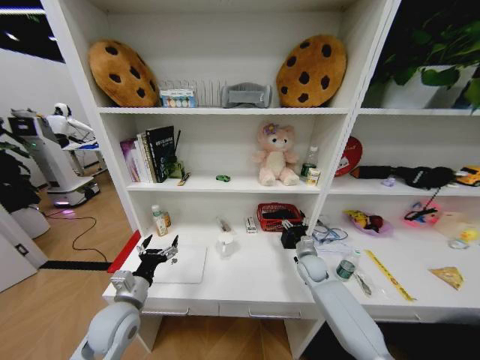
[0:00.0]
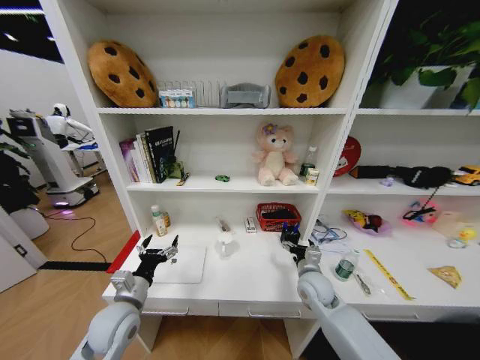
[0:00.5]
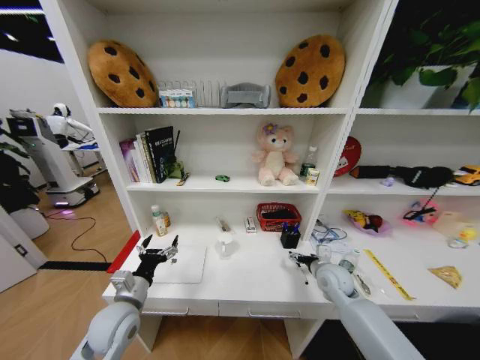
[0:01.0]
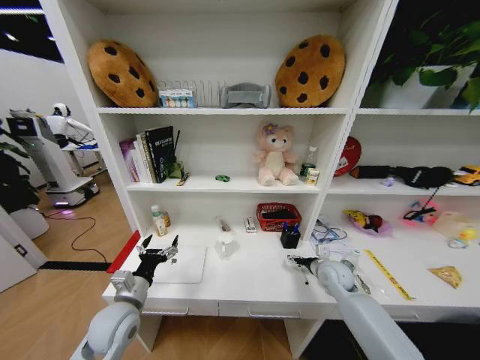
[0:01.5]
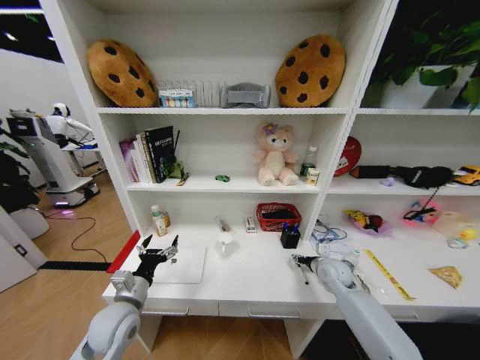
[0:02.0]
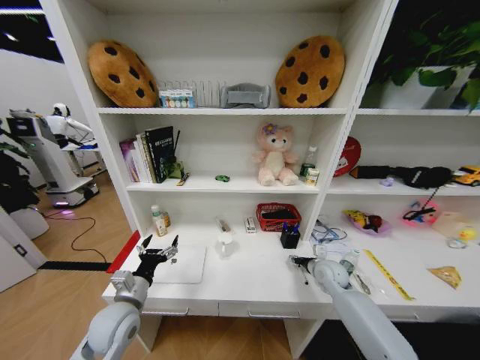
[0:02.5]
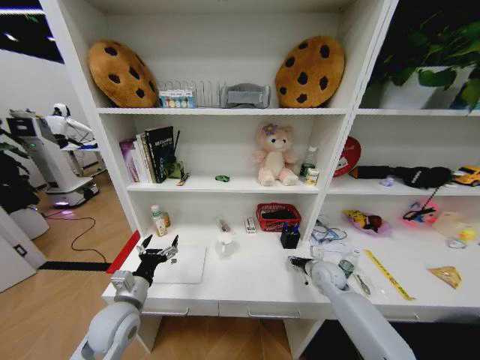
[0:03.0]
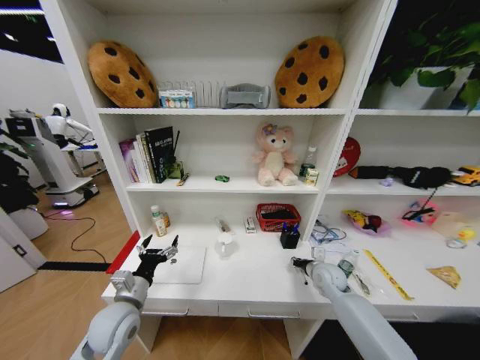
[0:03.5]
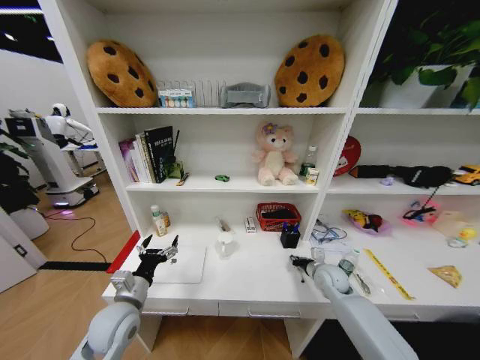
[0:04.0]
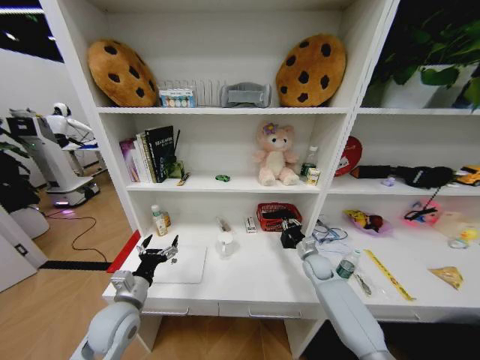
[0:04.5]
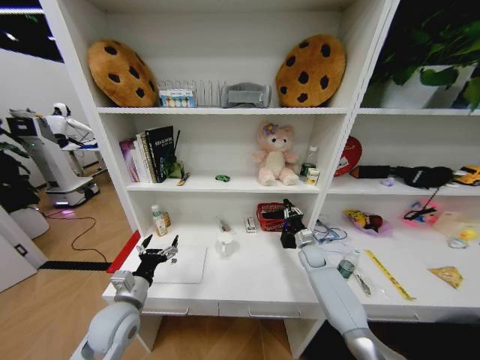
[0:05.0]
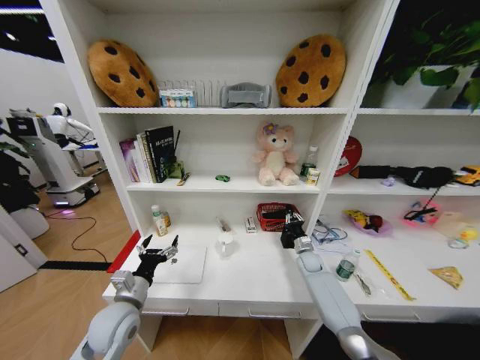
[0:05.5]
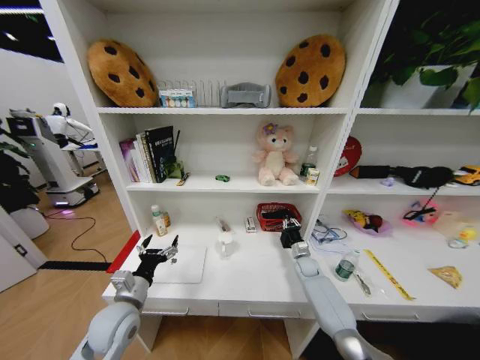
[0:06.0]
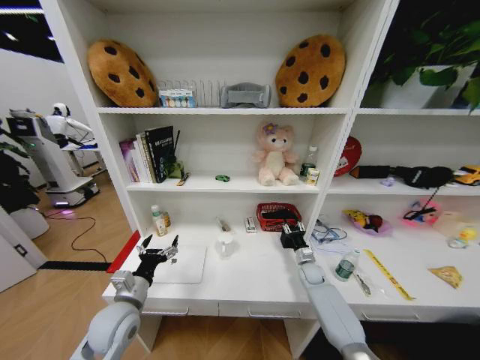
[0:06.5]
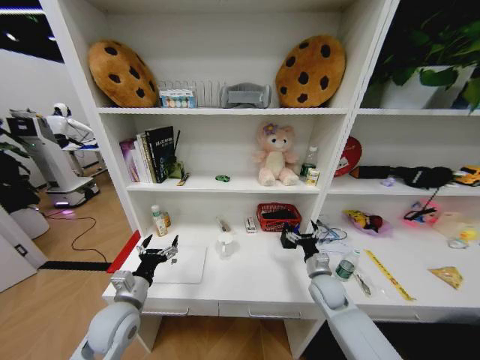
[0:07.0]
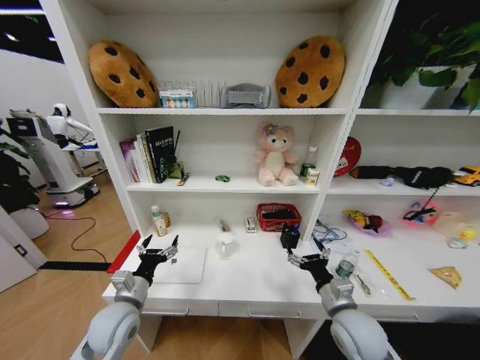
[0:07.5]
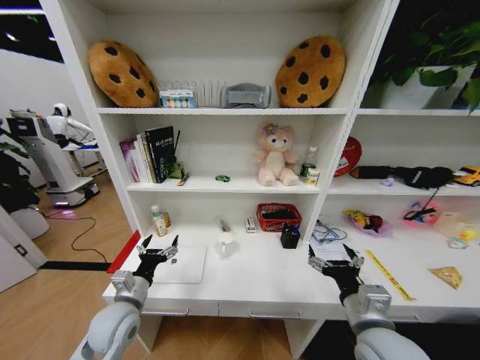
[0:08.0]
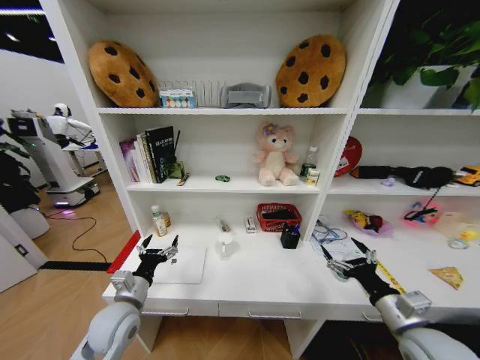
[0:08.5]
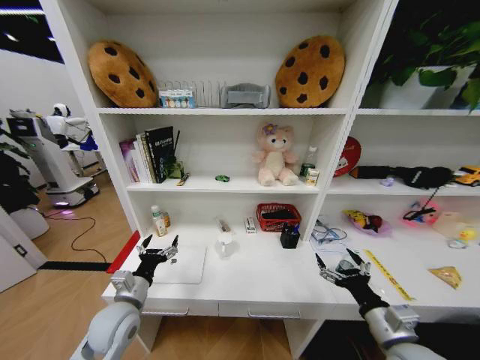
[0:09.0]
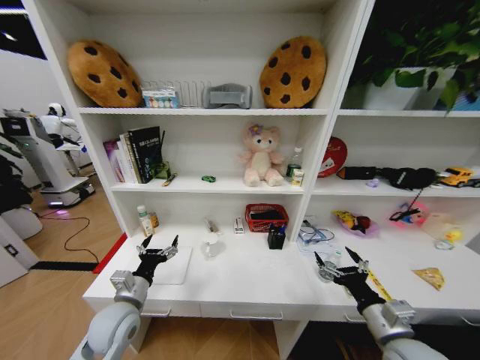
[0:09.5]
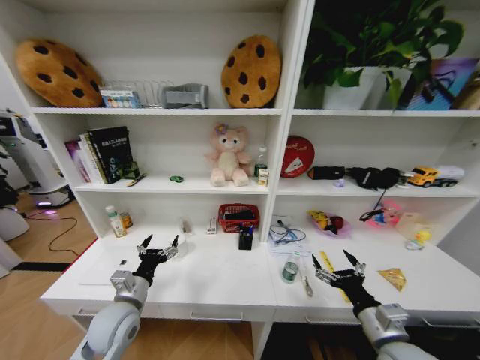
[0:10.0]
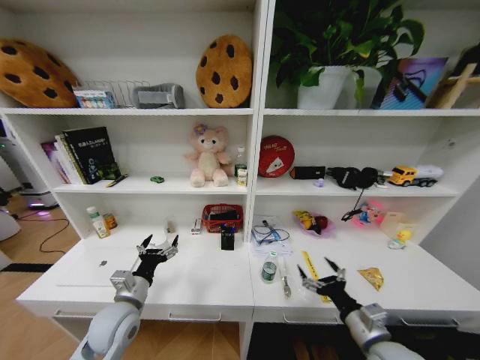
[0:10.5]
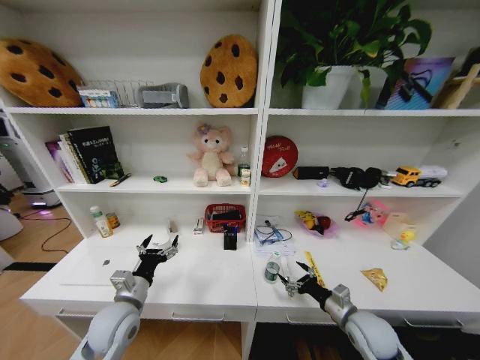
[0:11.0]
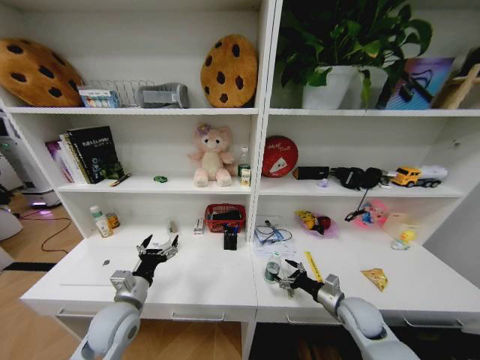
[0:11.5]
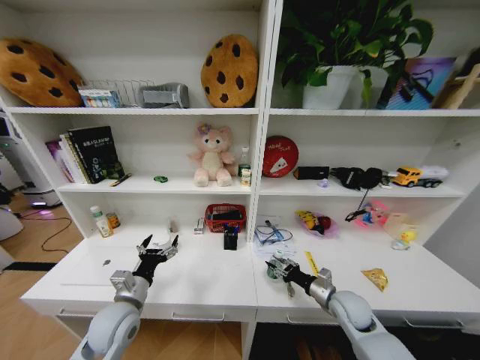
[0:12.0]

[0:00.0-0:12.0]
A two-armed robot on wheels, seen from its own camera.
Task of the whole recording: Organize the objects on the table.
0:00.0 to 0:02.0: The right gripper moves backward and upward, about 10 cm.
0:02.0 to 0:04.0: The right gripper closes.
0:04.0 to 0:06.0: The right gripper shifts roughly 15 cm downward and forward.
0:06.0 to 0:08.0: The right gripper shifts about 40 cm backward and upward, and opens up.
0:08.0 to 0:10.0: The right gripper heads to the right and downward, covering roughly 10 cm.
0:10.0 to 0:12.0: The right gripper heads forward and downward, covering roughly 15 cm, and closes.

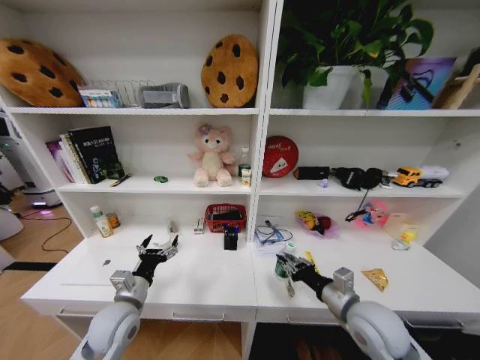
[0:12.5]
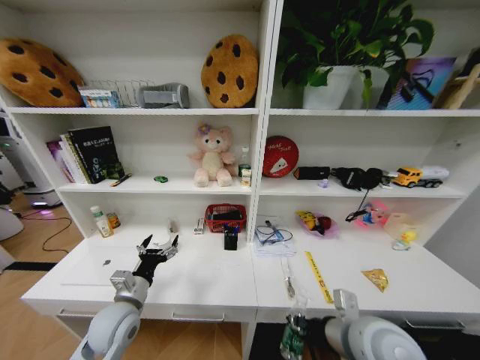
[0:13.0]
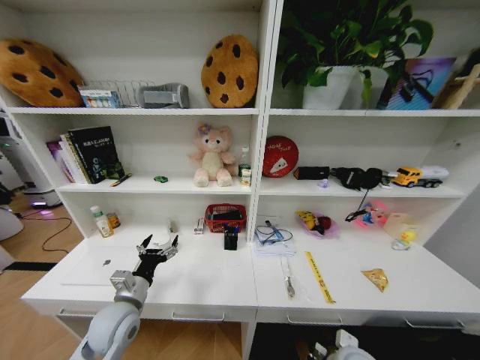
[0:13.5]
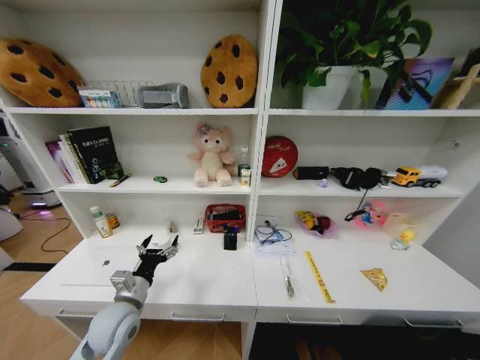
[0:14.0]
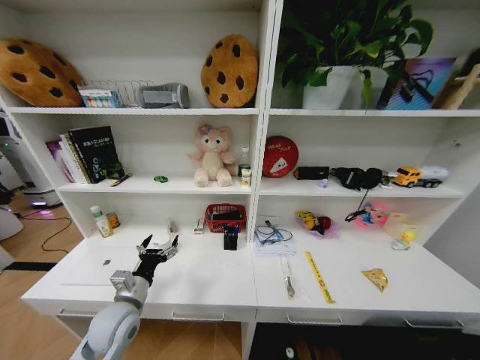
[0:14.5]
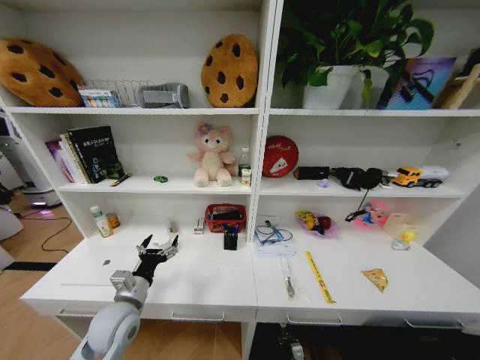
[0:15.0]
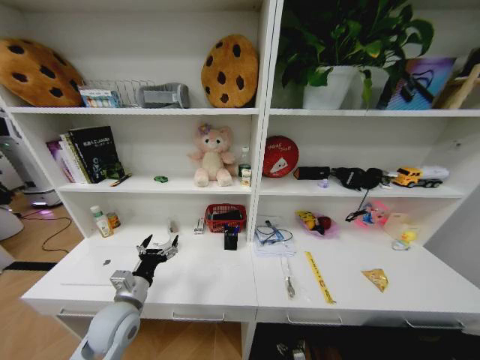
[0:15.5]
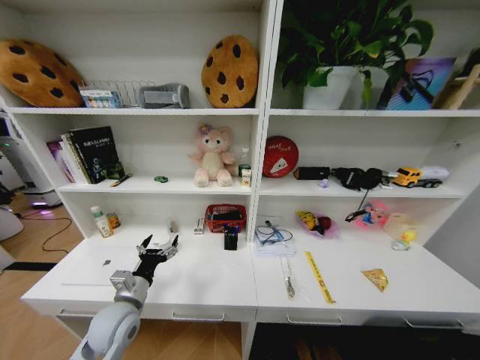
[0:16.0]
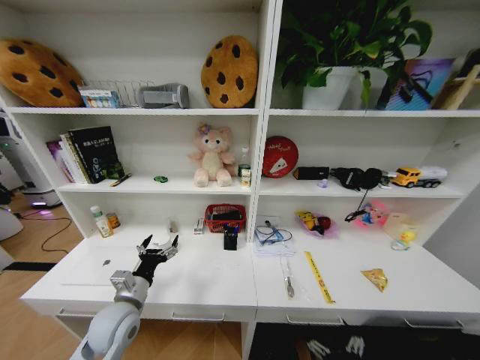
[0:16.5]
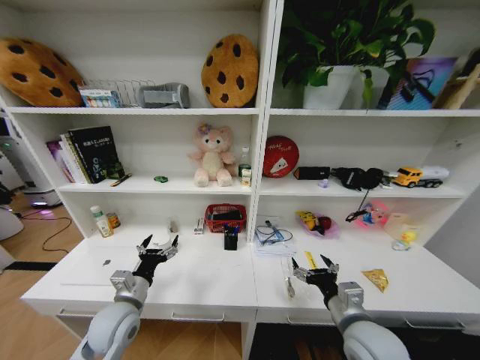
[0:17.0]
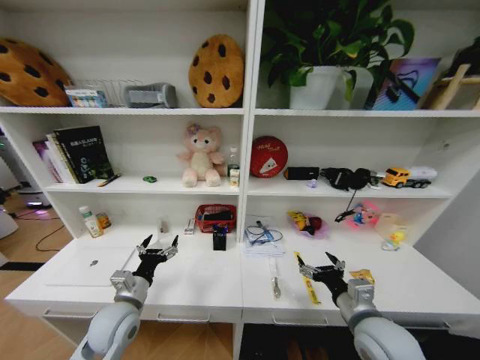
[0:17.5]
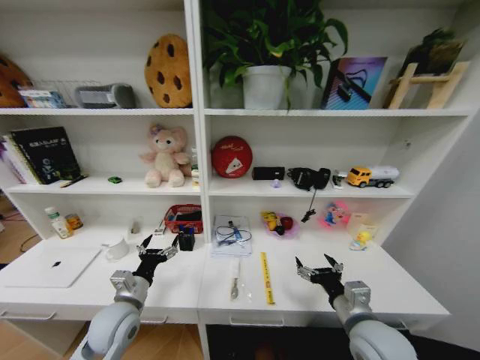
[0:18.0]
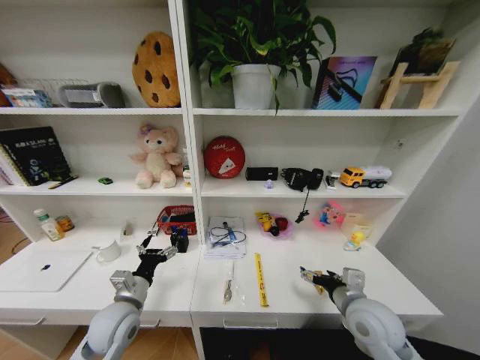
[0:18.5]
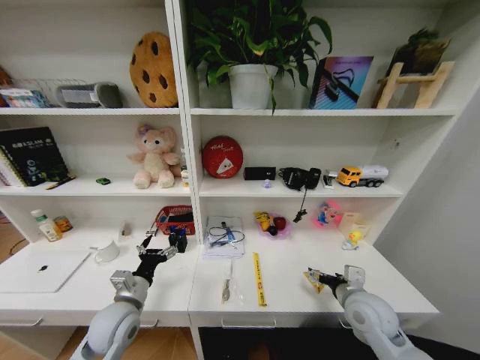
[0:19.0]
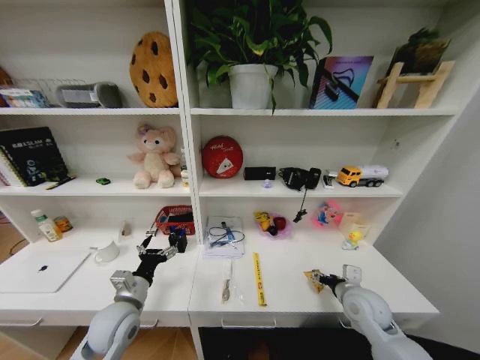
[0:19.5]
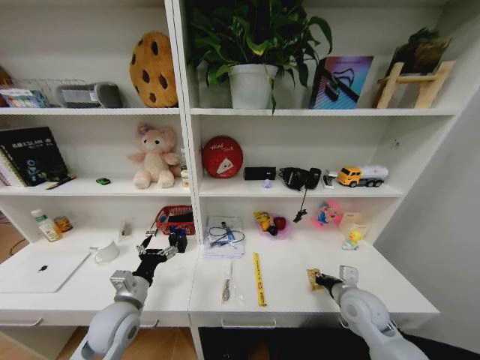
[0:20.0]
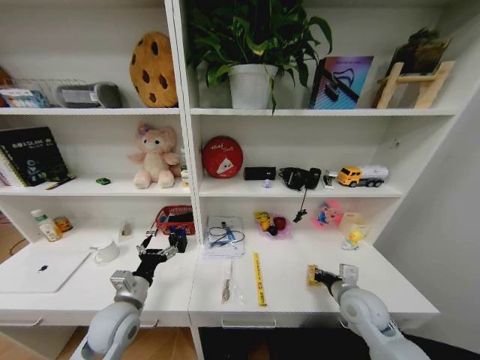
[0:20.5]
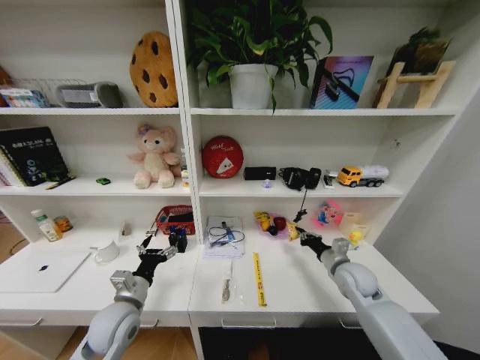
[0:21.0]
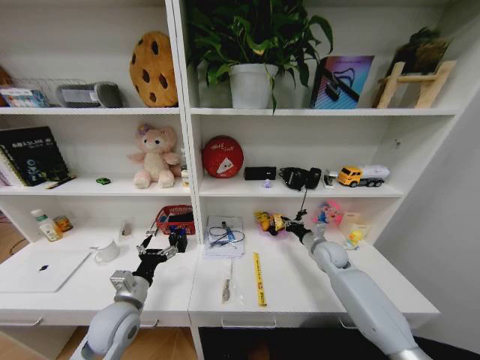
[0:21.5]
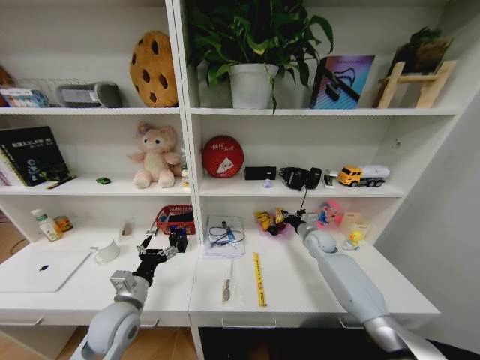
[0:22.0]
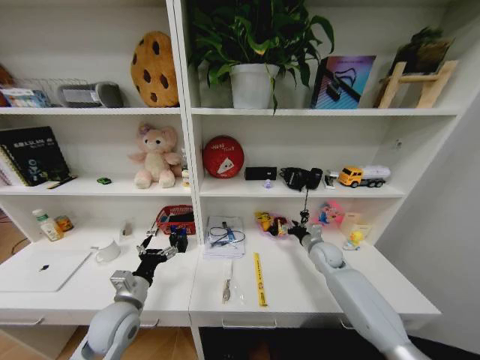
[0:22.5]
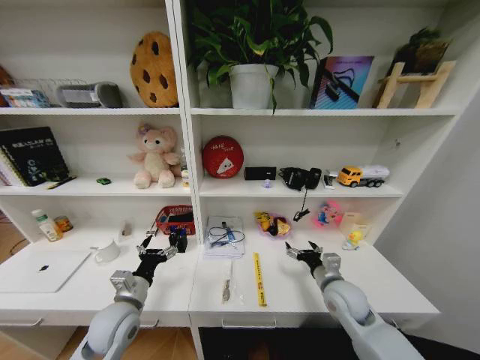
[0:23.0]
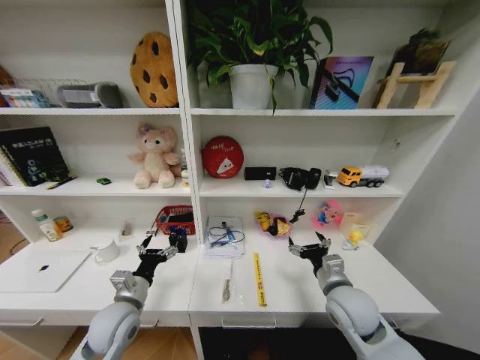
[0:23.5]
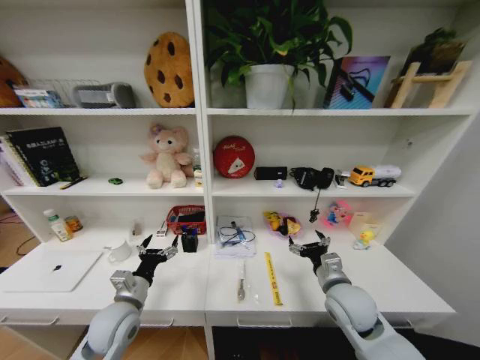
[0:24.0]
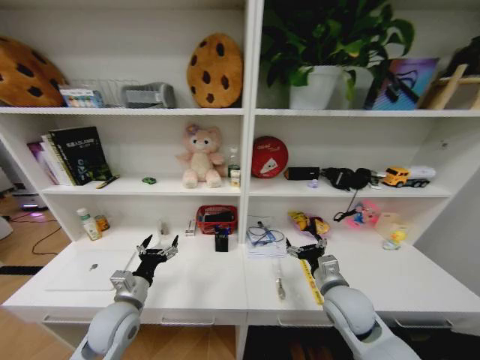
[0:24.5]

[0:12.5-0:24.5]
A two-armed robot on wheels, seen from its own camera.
Task of the whole recording: Organize the objects on the table.
0:12.5 to 0:14.5: The right gripper heads downward, covering about 50 cm.
0:16.5 to 0:18.5: The right gripper heads forward and upward, covering approximately 25 cm.
0:18.5 to 0:20.5: The right gripper heads forward and downward, covering about 5 cm, and closes.
0:20.5 to 0:22.5: The right gripper heads forward, covering about 20 cm, and opens its fingers.
0:22.5 to 0:24.5: The right gripper moves backward, approximately 20 cm, and opens its fingers.

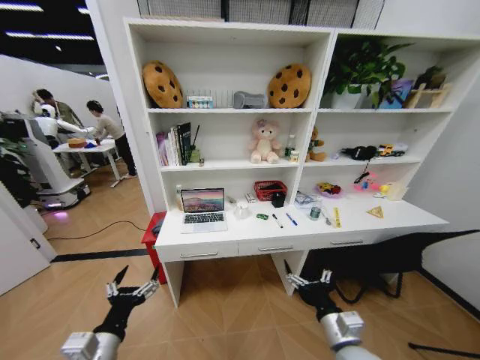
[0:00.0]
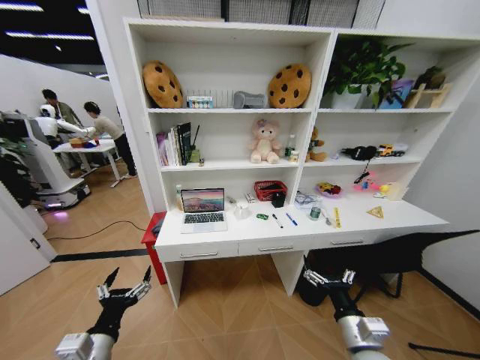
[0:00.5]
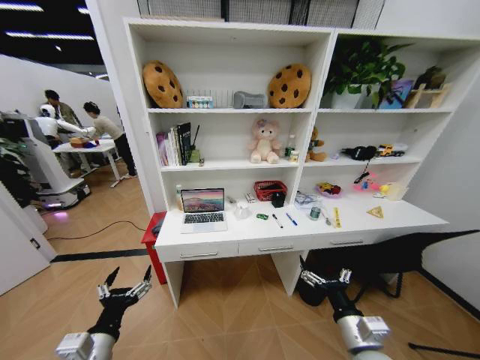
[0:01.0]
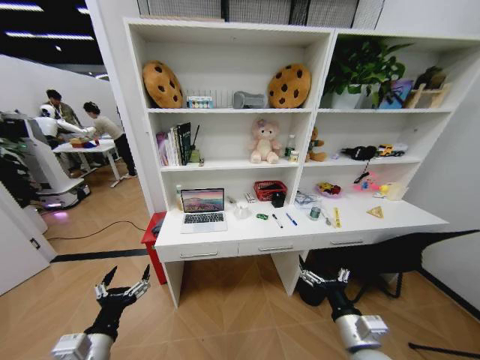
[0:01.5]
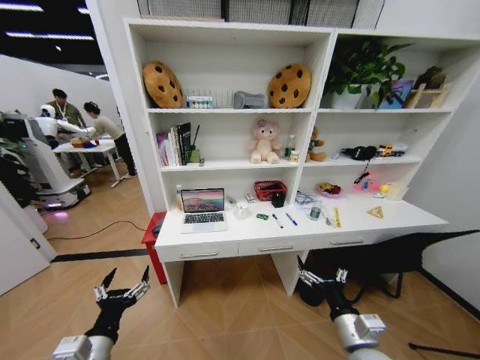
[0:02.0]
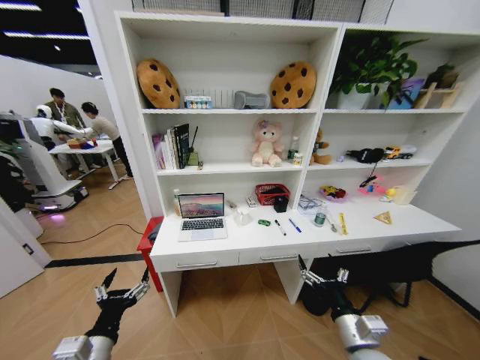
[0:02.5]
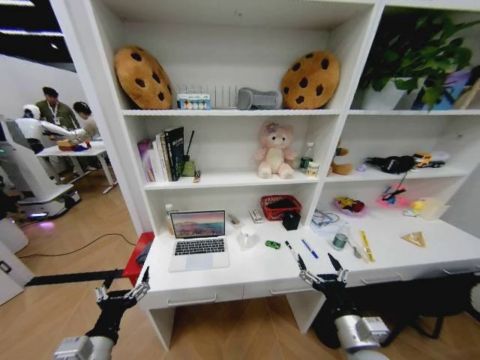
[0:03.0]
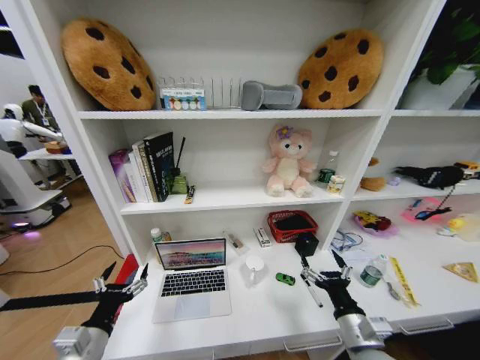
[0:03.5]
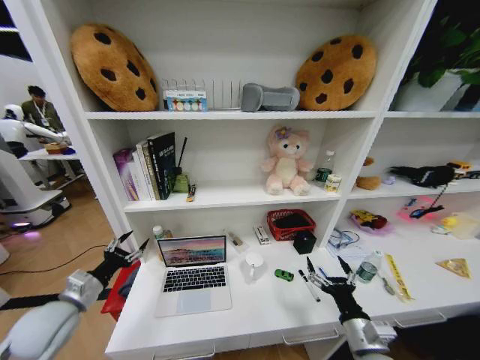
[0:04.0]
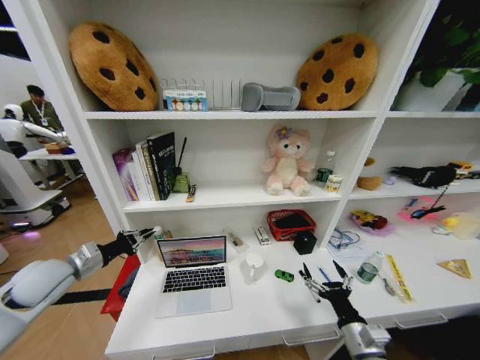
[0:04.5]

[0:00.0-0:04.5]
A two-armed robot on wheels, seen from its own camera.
Task of the whole recording: Organize the objects on the table.
0:02.0 to 0:04.5: The left gripper is displaced forward, to the left and upward by about 25 cm, and closes its fingers.
